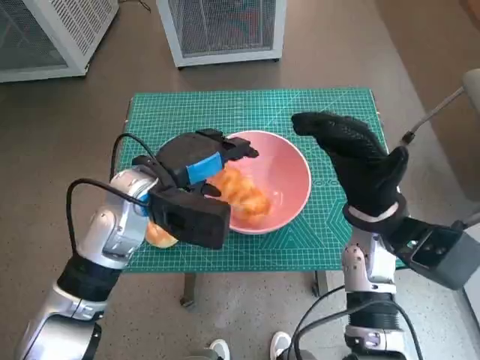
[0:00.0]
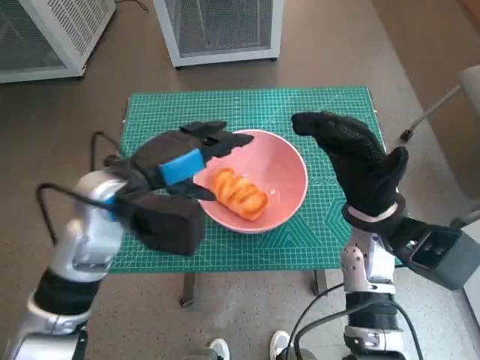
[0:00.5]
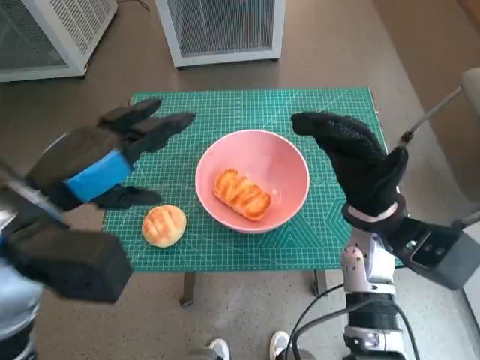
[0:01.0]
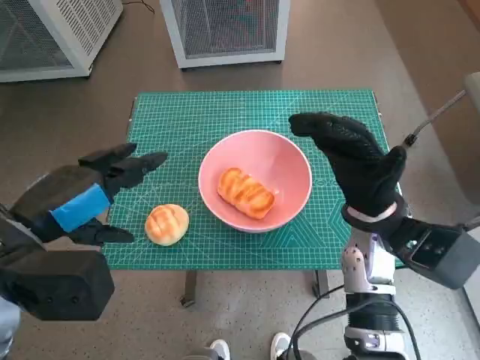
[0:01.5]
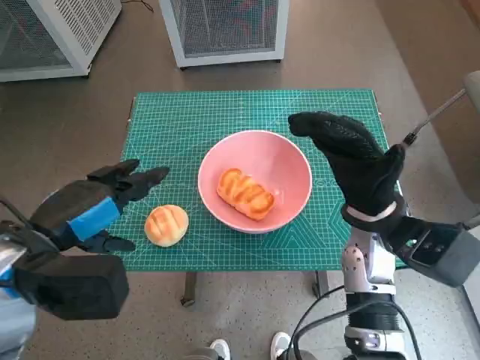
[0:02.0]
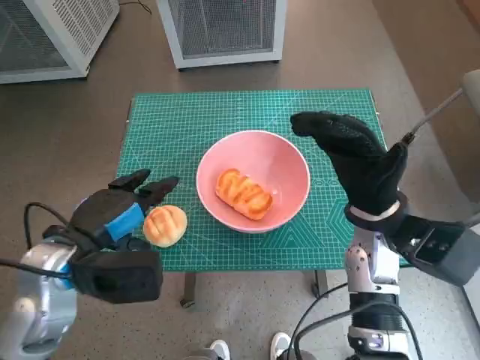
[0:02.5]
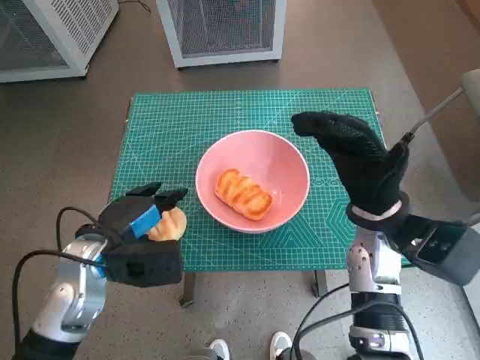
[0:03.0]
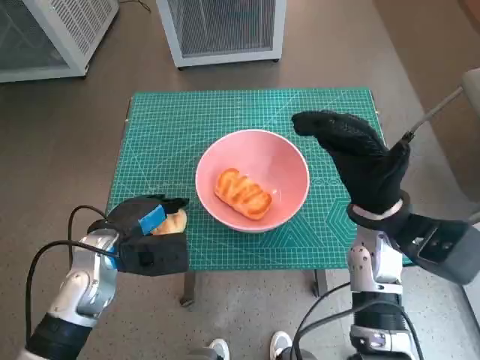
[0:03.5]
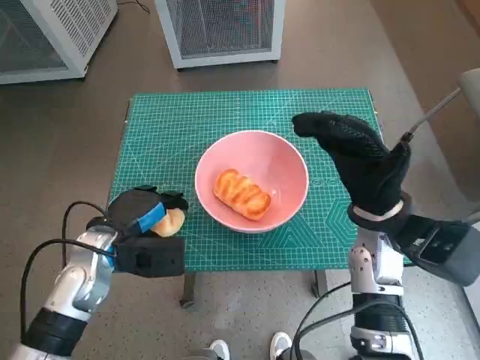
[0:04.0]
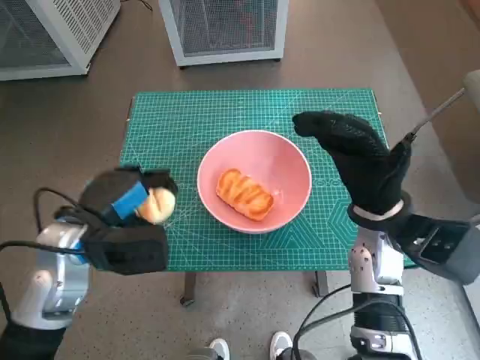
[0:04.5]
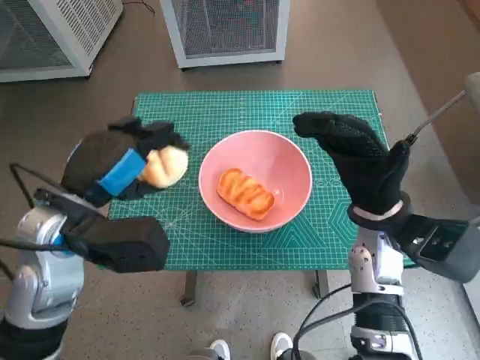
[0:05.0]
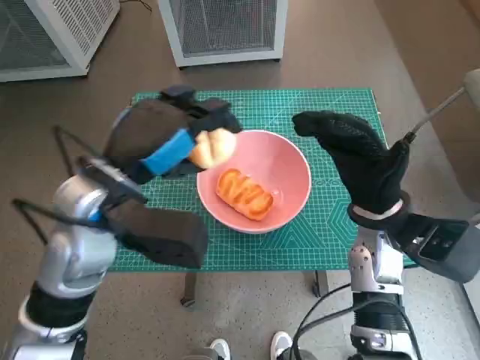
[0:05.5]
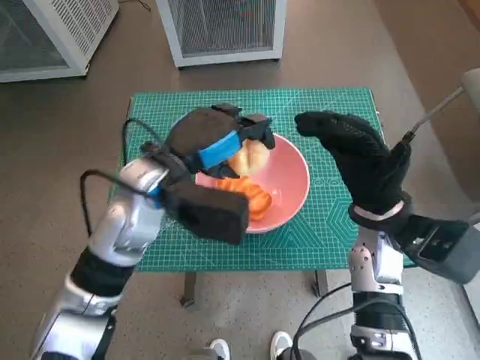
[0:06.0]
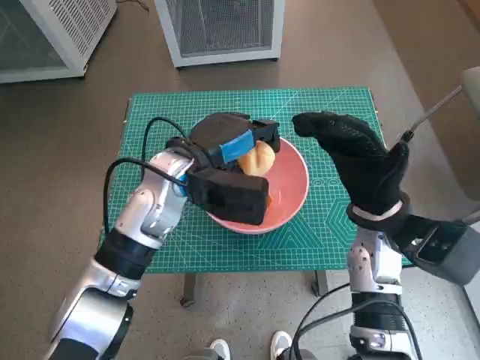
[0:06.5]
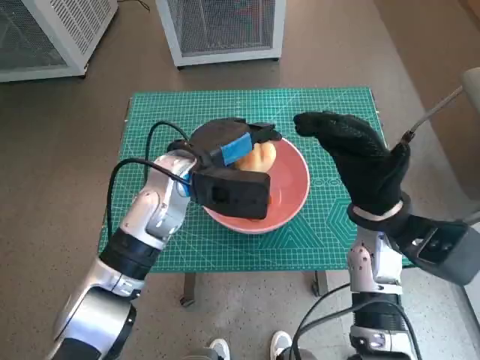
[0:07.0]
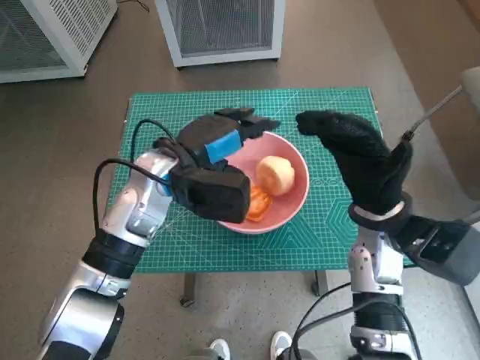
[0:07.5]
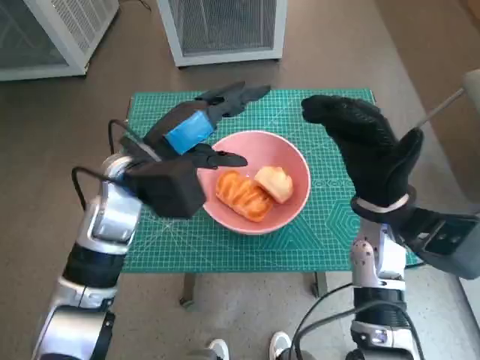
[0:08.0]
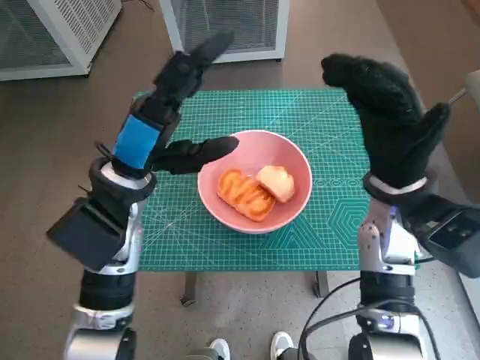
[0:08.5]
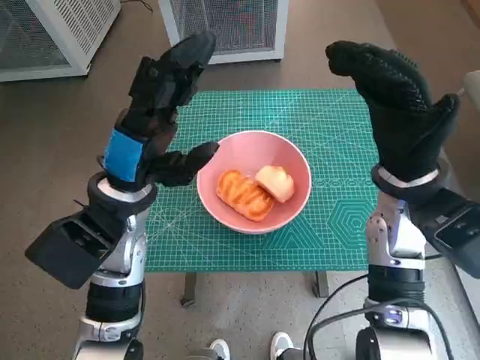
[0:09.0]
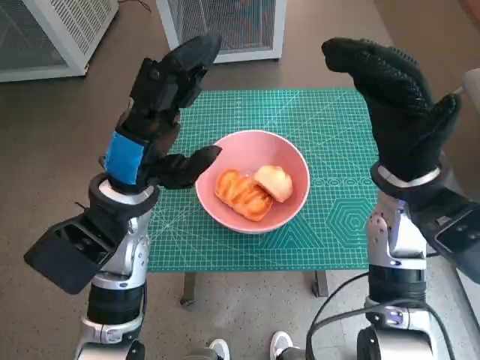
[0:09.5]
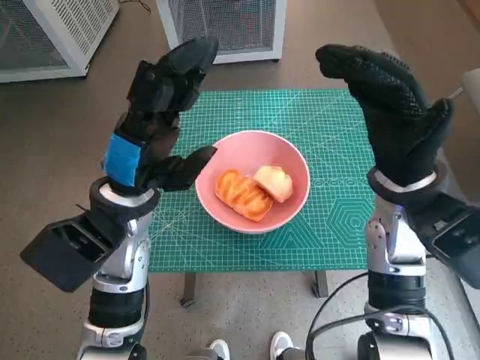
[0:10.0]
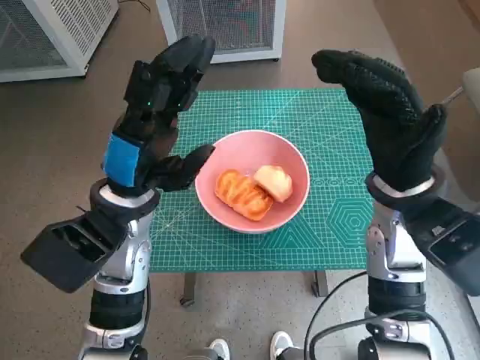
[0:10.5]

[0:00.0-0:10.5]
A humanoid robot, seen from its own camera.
Task of the whole recording: Push the bowl into the center of the table and put the bread into the bowl.
Step, 0:00.5 to 0:03.0: Grasp the round bread with left hand.
Step, 0:04.0 to 0:07.0: Place the round bread in pink bowl with left hand.
0:00.0 to 0:02.0: The left hand shifts roughly 15 cm backward and to the left.
0:02.0 to 0:04.0: The left hand goes about 15 cm downward and forward.
0:04.0 to 0:06.5: The left hand moves to the right, upward and forward, roughly 15 cm.
0:06.5 to 0:08.5: The left hand shifts some 5 cm to the left.

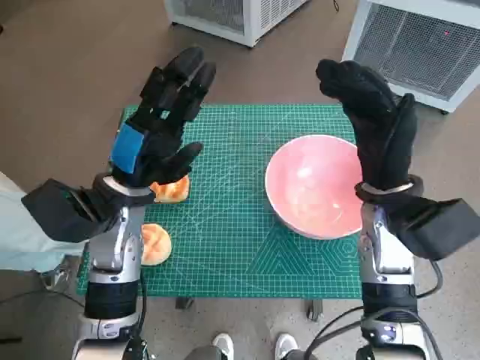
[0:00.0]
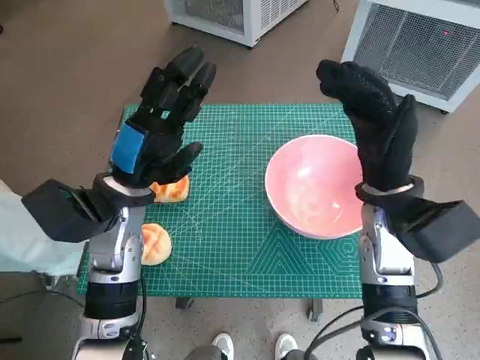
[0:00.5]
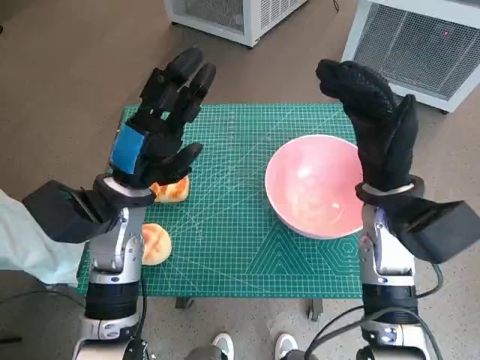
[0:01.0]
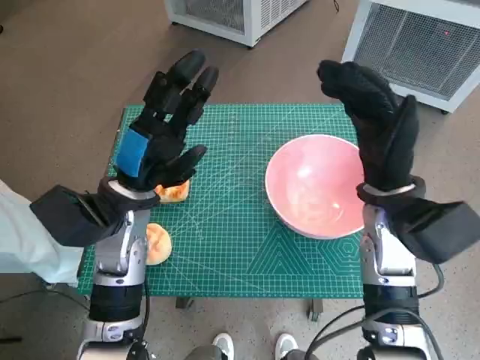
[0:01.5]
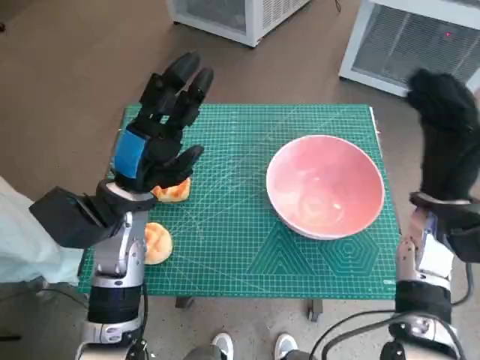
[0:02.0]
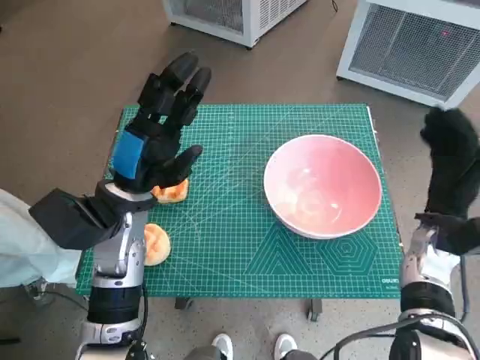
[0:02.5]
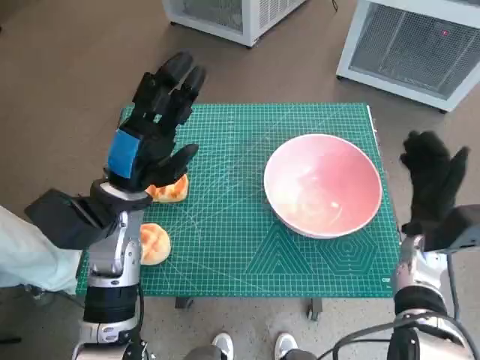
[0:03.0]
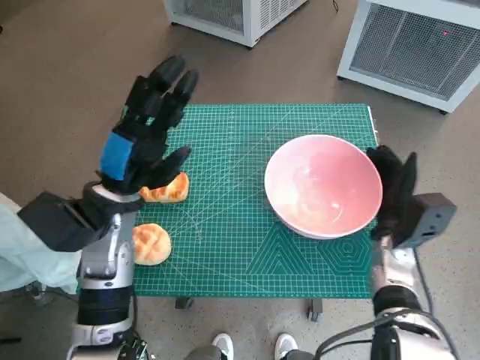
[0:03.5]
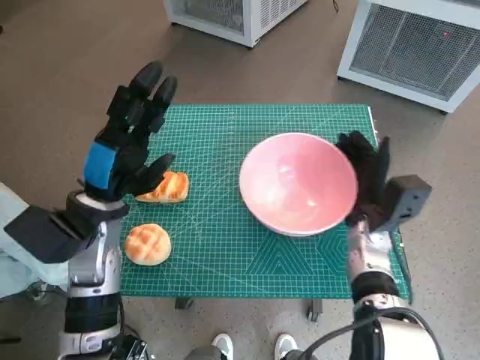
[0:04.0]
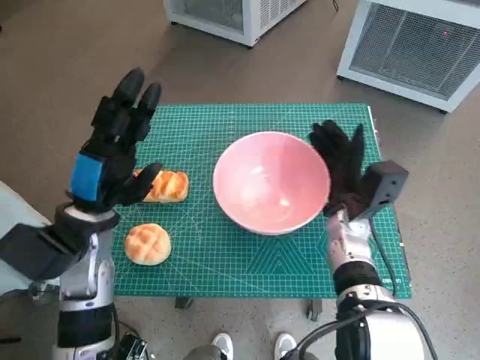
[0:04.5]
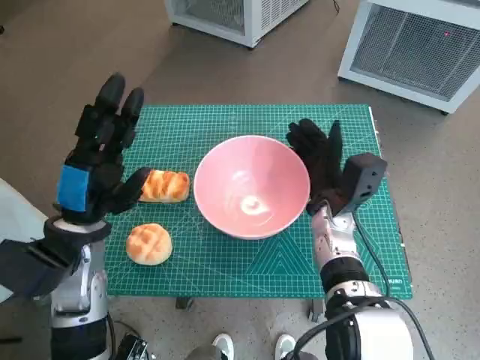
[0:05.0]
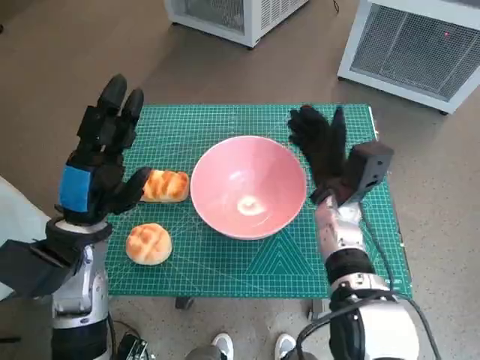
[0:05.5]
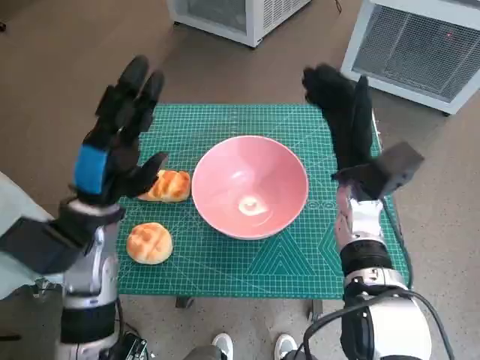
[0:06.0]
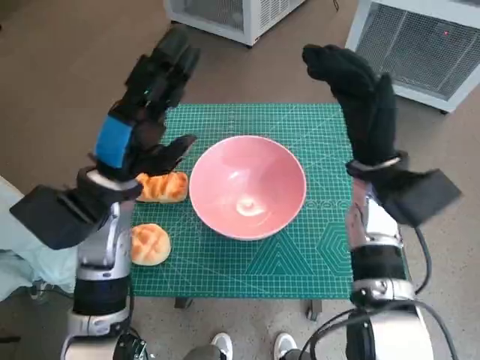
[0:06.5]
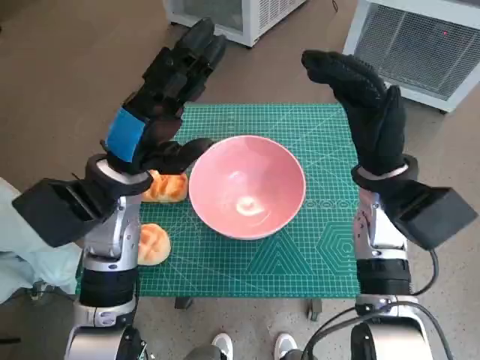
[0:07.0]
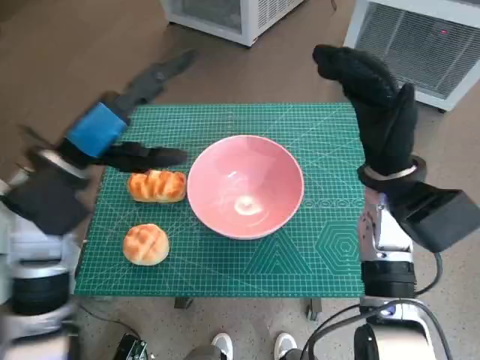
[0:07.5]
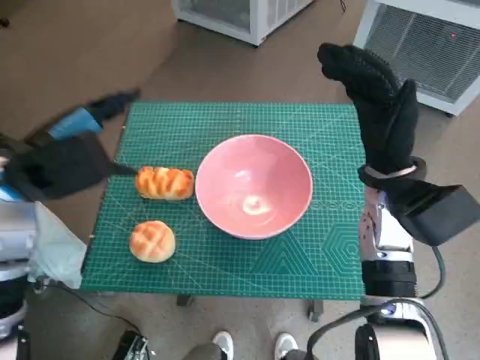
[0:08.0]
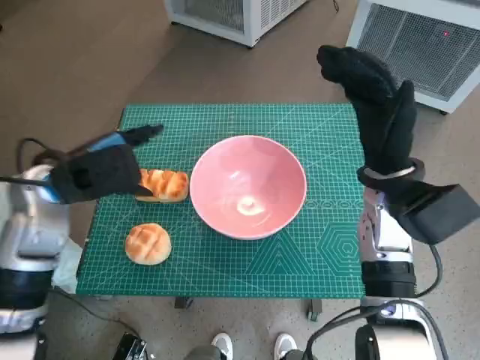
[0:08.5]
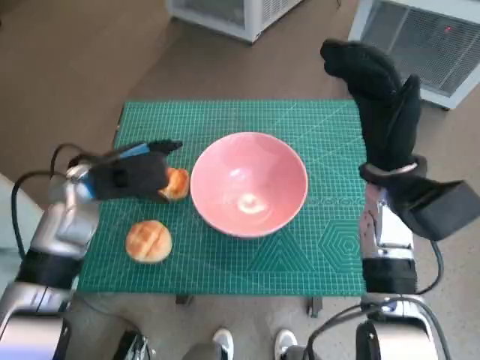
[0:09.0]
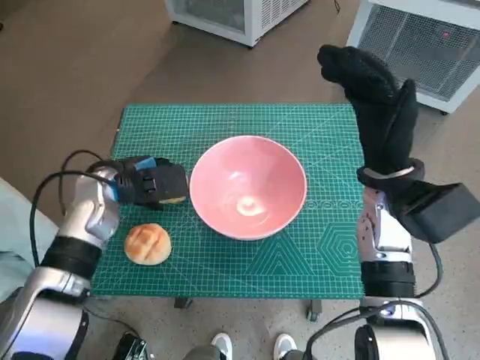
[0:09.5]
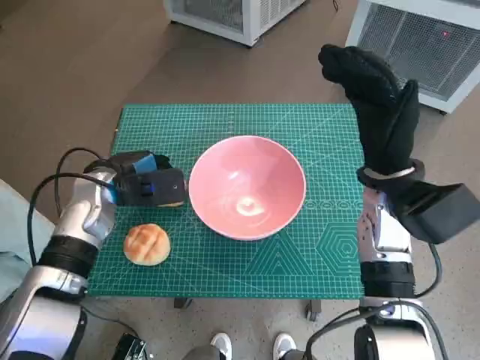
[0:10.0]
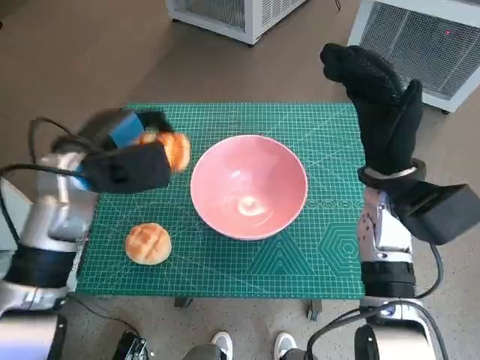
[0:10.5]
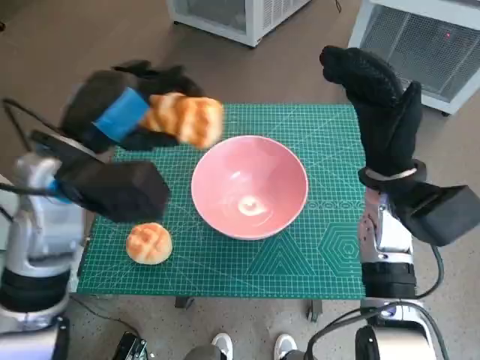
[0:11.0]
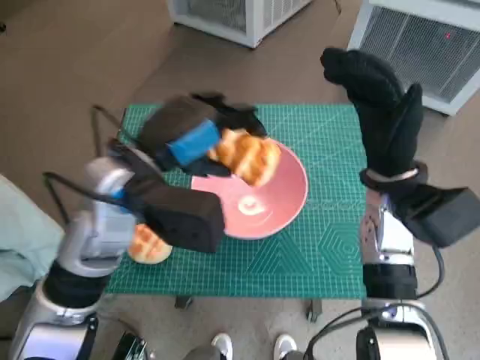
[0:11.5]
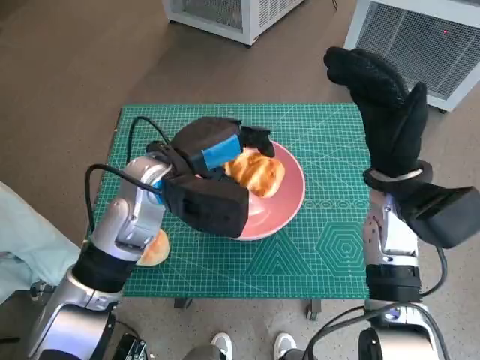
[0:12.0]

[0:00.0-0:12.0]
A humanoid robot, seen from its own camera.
Task of the whole recording: Push the bowl into the center of the table and put the bread into the bowl.
Step, 0:00.0 to 0:05.0: Move the pink bowl to the center of table with right hand.
Step, 0:06.0 to 0:09.5: Grasp the long bread with left hand.
0:02.0 to 0:04.0: The right hand goes approximately 10 cm downward.
0:04.0 to 0:06.0: The right hand goes approximately 10 cm upward.
0:06.0 to 0:08.0: The left hand travels upward by approximately 10 cm. Meanwhile the right hand travels upward by some 5 cm.
0:08.0 to 0:10.0: The left hand shifts some 15 cm downward and forward.
0:10.0 to 0:12.0: The left hand goes about 15 cm to the right and upward.

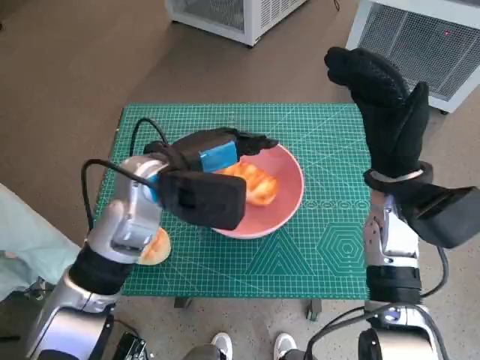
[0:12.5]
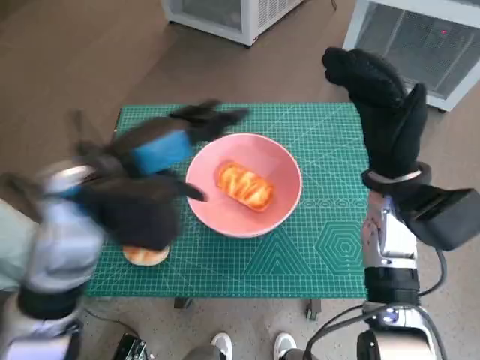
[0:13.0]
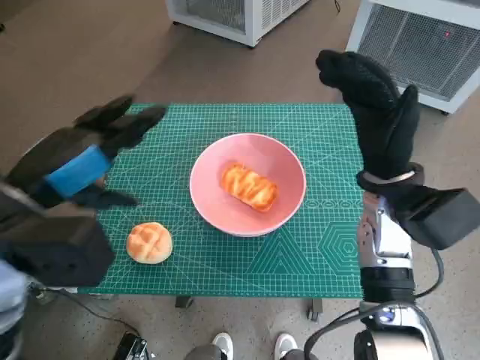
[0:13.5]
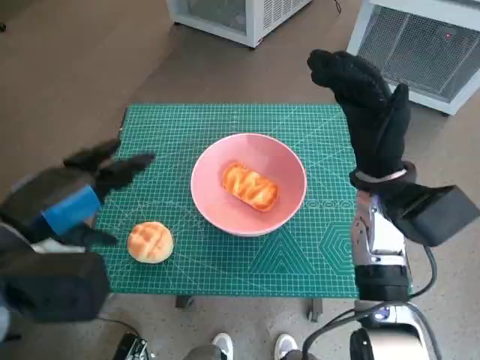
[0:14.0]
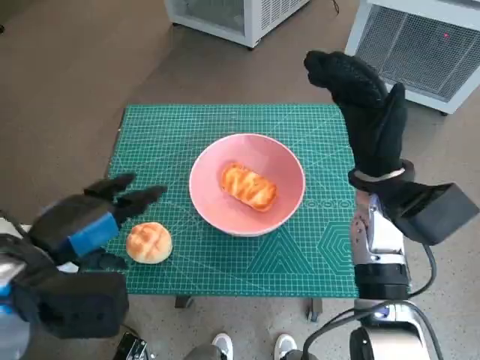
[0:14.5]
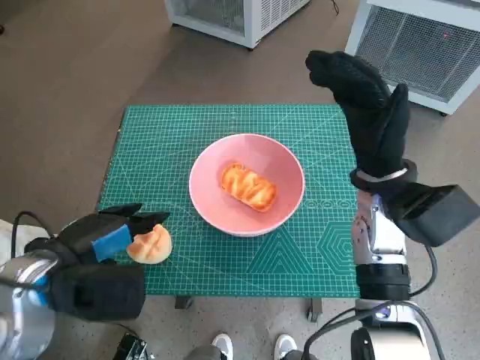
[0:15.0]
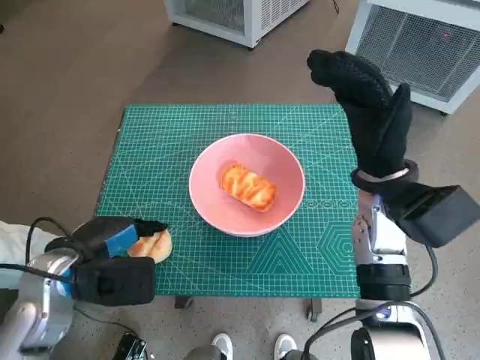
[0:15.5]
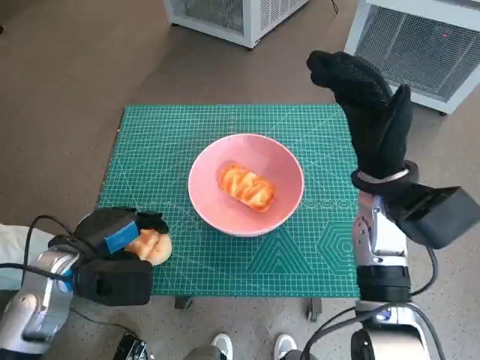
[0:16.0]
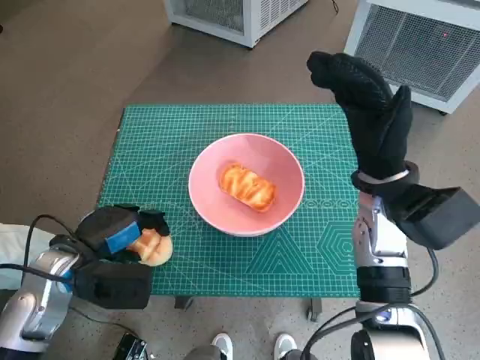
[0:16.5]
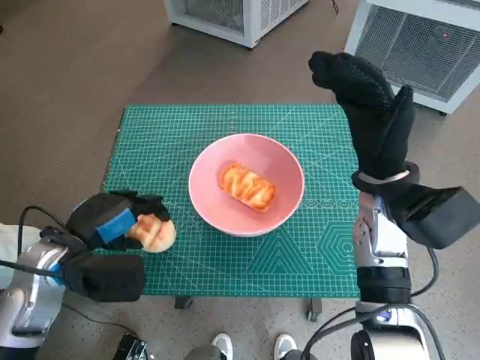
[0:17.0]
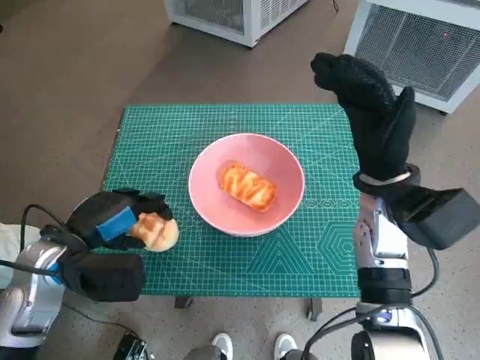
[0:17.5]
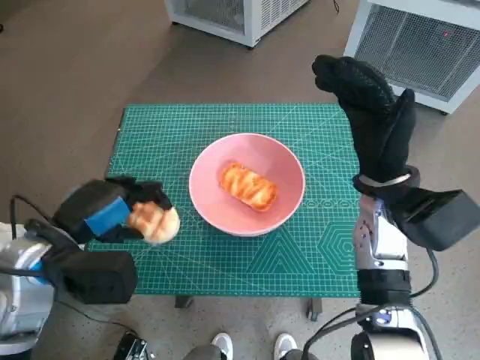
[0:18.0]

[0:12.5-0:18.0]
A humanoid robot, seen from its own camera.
Task of the whole recording: Push the bowl into the center of the table and put the bread into the bowl.
Step, 0:12.5 to 0:15.5: Grasp the round bread with left hand.
0:12.5 to 0:14.5: The left hand heads backward and to the left, covering approximately 15 cm.
0:14.5 to 0:16.0: The left hand heads downward, covering about 10 cm.
0:16.0 to 0:18.0: The left hand goes approximately 5 cm upward.
